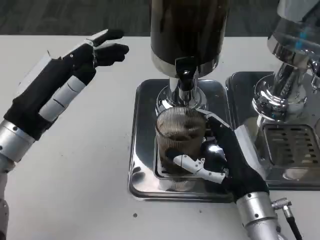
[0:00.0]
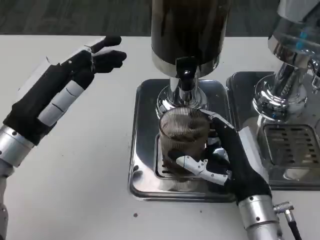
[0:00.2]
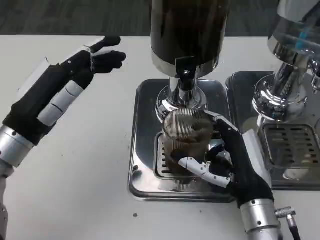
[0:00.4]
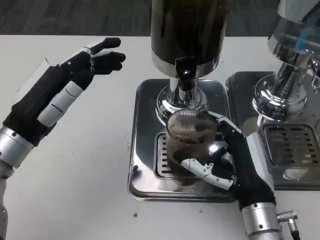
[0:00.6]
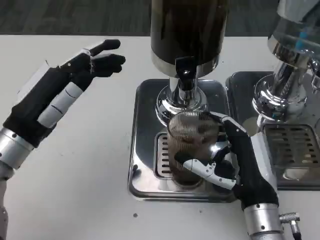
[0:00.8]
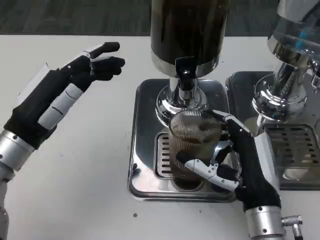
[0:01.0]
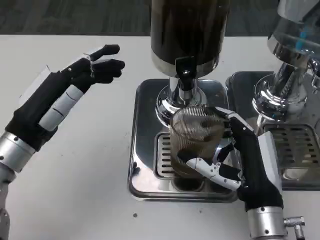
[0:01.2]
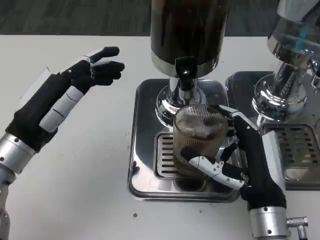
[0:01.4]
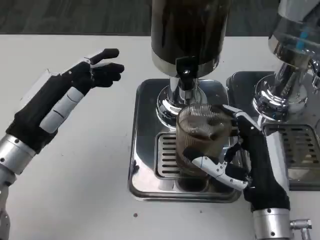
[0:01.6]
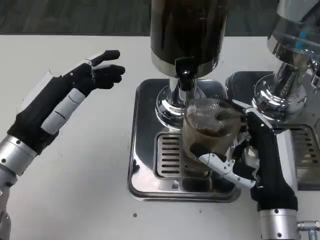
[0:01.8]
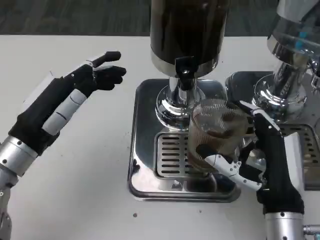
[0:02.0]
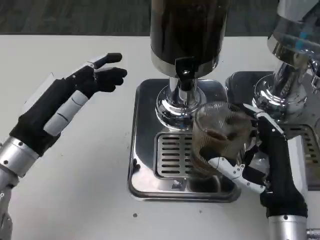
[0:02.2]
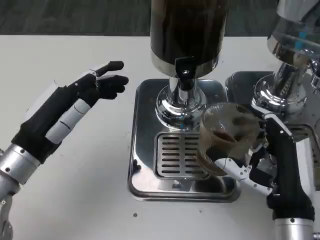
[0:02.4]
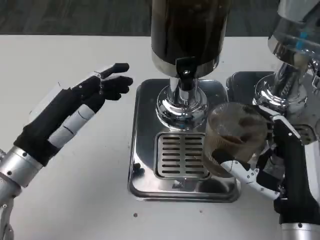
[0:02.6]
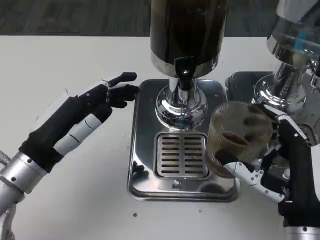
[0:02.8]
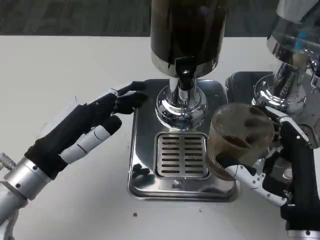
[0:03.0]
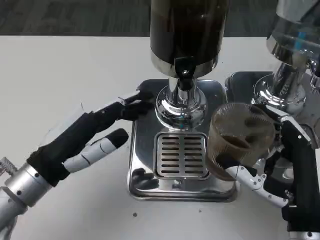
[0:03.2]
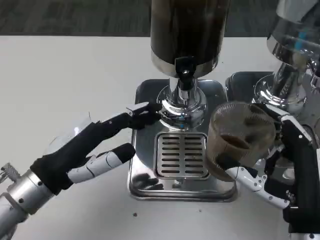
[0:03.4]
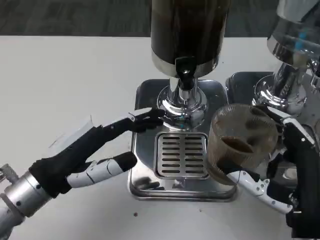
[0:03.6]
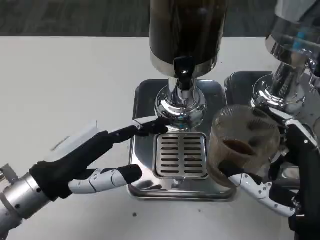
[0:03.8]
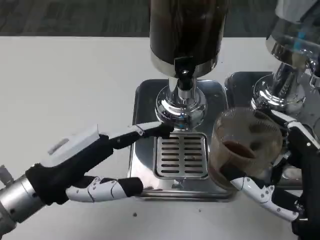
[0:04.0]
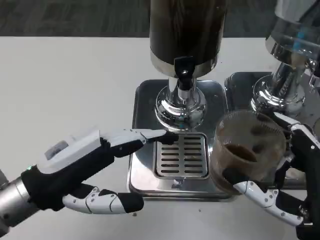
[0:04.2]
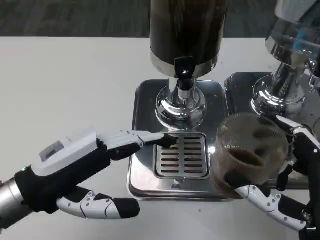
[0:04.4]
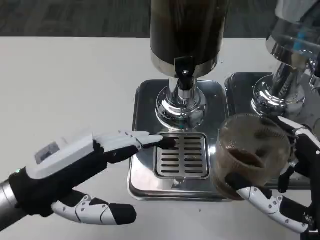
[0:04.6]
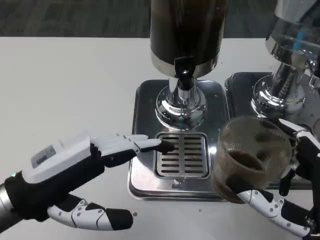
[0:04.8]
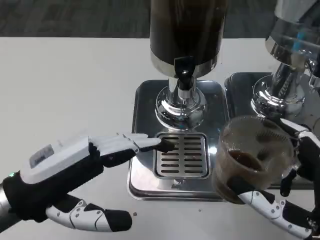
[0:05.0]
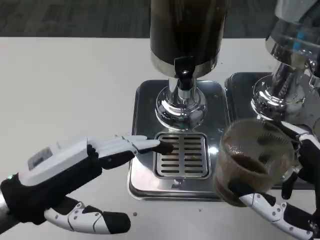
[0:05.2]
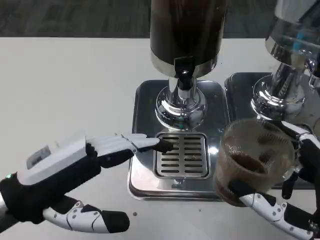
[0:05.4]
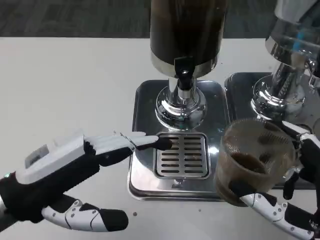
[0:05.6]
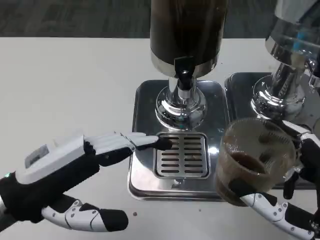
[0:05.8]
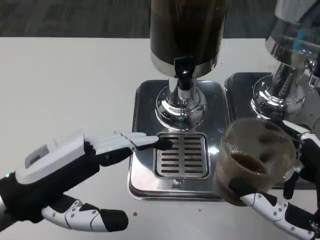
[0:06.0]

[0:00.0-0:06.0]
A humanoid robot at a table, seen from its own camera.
Task of the whole recording: Grasp the cup under the faucet to collect the drink, then remove the cup.
0:03.0 to 0:04.4: The left hand shifts by about 5 cm.
0:04.4 to 0:06.0: The hands stay close to where they were, moving slightly.

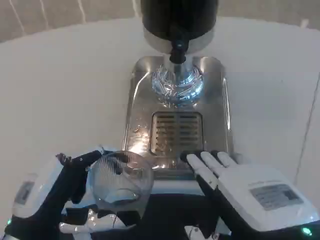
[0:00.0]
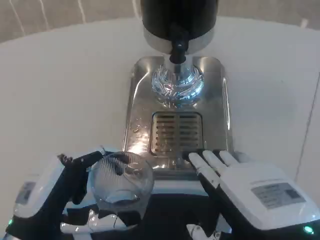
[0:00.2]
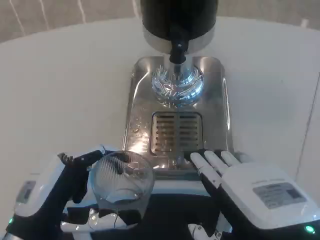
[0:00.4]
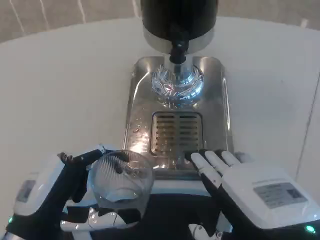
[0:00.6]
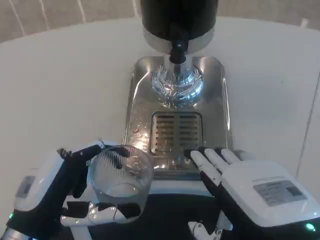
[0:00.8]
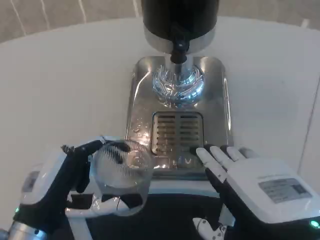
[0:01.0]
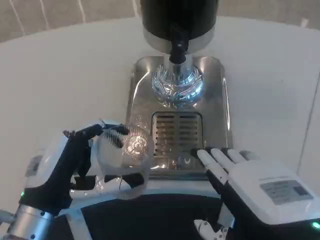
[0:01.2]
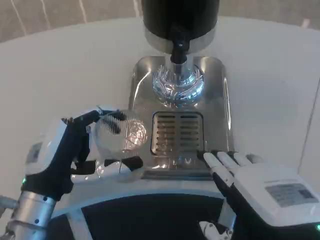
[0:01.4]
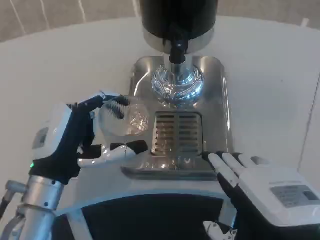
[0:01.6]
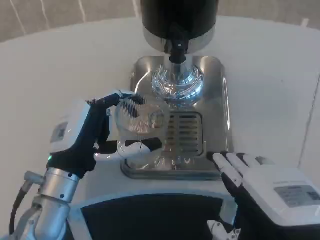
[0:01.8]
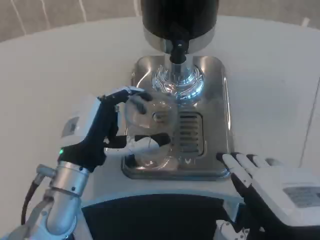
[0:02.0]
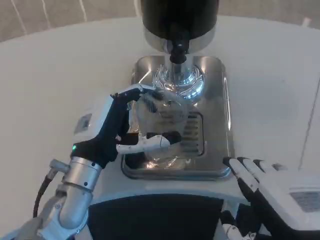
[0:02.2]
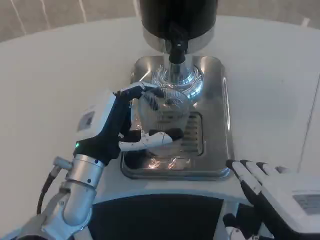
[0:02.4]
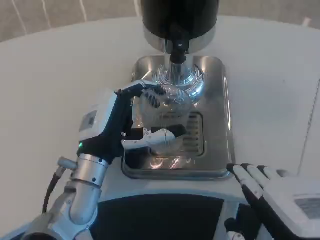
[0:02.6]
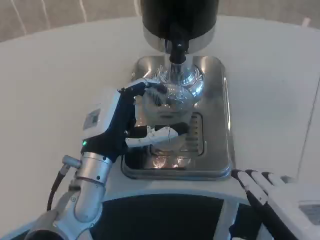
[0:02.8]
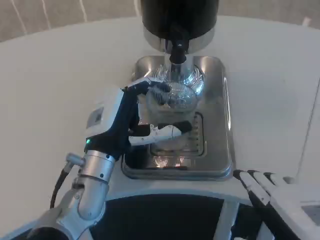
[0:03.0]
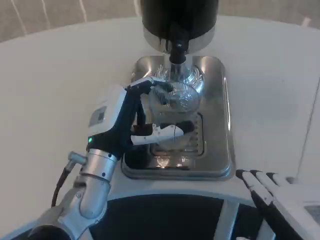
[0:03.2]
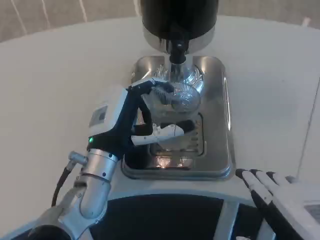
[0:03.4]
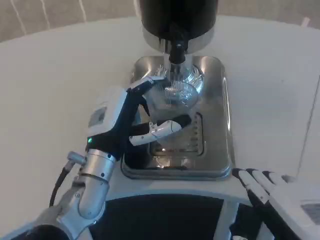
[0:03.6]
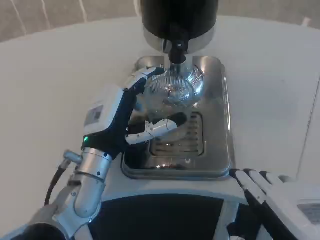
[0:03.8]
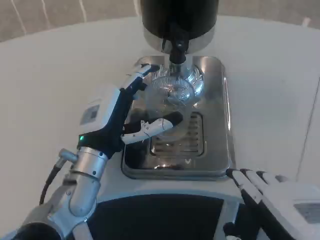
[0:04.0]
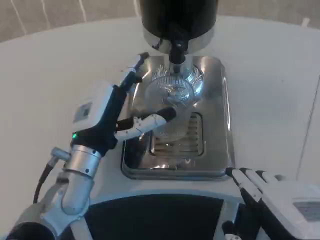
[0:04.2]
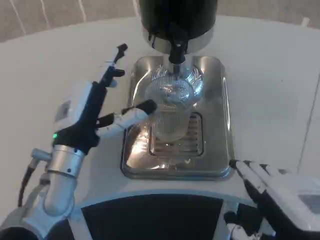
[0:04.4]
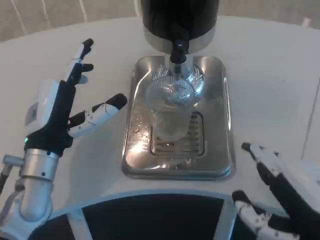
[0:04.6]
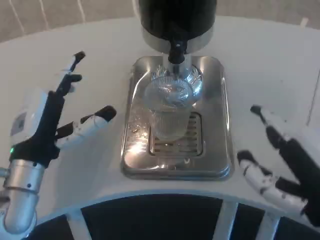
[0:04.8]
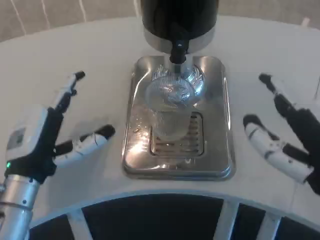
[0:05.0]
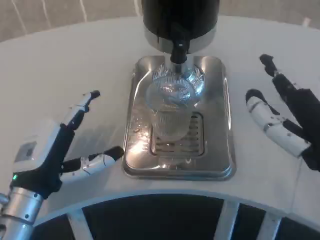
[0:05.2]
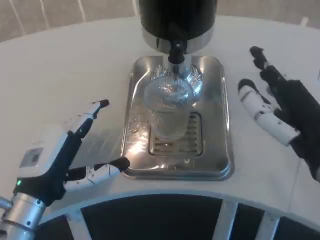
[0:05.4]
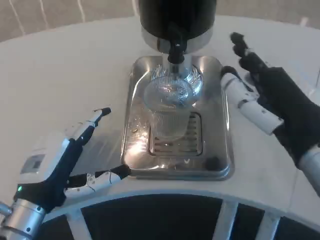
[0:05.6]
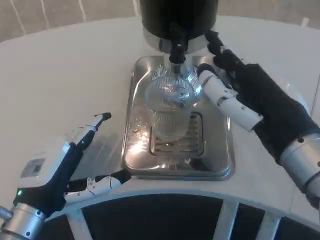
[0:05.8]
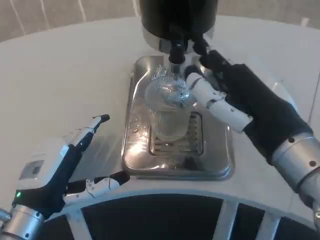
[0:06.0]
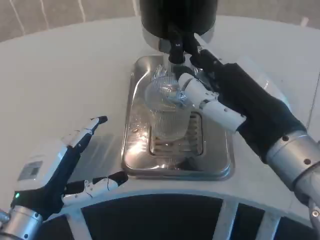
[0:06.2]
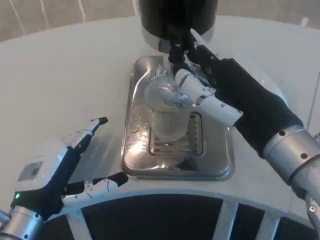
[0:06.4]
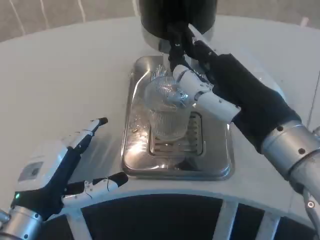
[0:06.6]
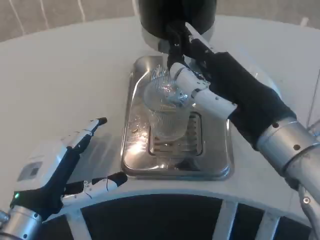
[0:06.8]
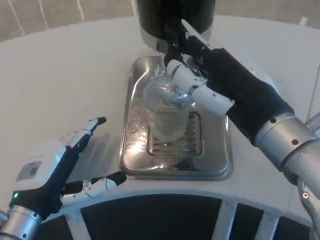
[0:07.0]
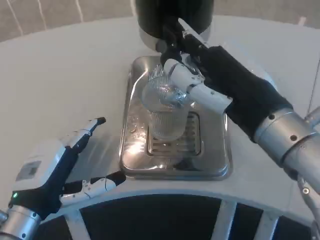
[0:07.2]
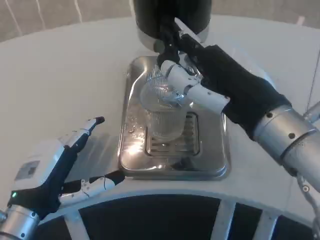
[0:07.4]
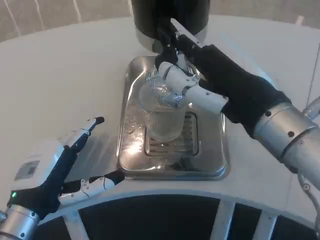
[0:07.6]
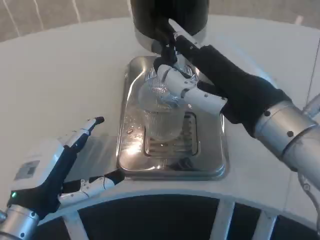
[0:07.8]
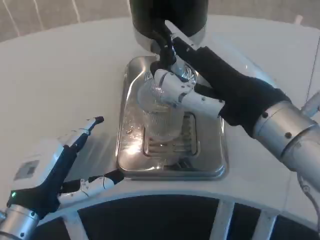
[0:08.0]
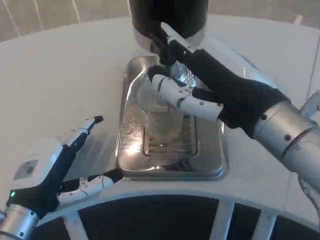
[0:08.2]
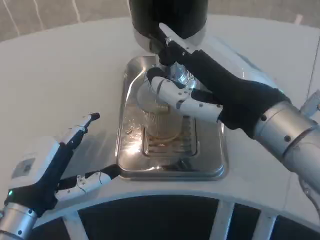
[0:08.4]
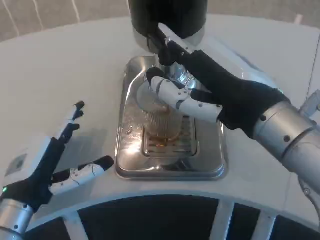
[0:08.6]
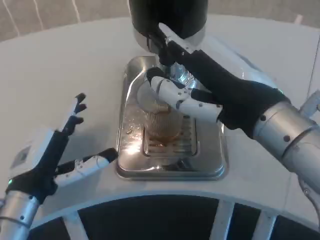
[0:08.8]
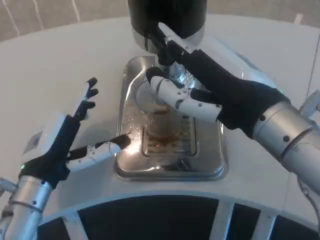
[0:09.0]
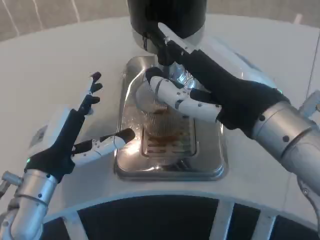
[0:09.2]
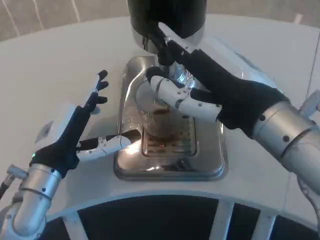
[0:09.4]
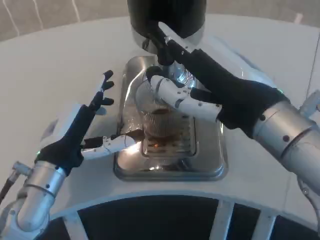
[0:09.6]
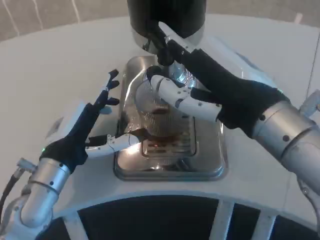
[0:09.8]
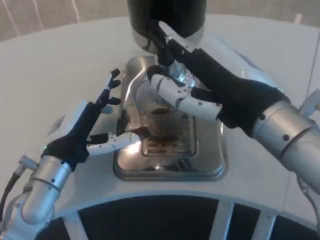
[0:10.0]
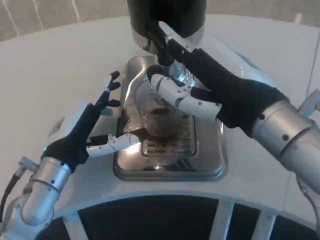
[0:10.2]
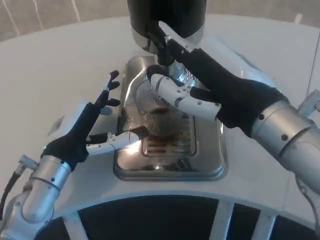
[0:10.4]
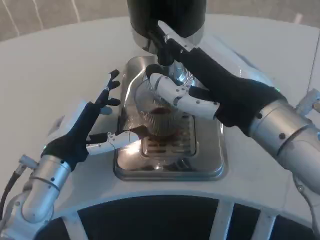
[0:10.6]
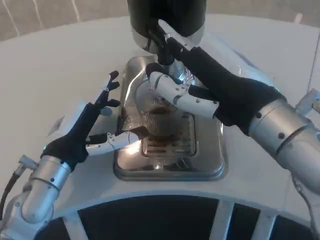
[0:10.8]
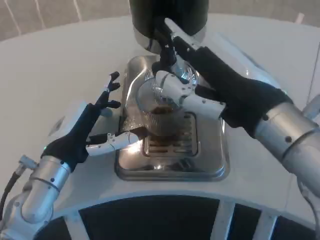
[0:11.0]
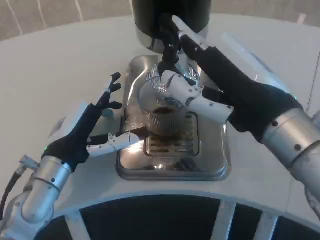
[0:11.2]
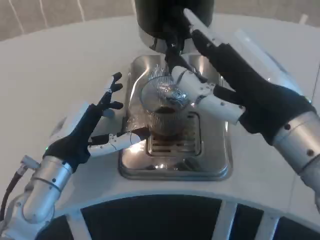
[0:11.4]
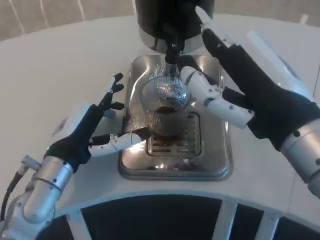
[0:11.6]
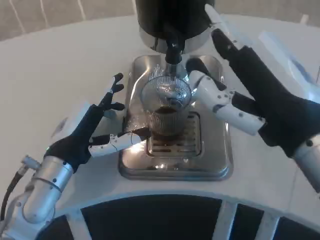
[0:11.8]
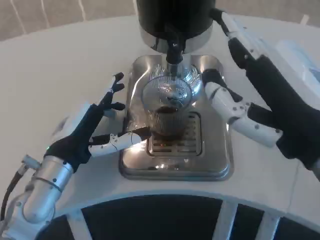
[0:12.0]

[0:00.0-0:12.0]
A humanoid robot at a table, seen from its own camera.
Task of the whole recording: Grasp the cup under the faucet to collect the drink, then remove the cup.
0:00.0 to 0:01.6: The left hand heads forward, covering some 10 cm.
0:01.6 to 0:03.0: The left hand is displaced to the right by approximately 5 cm.
0:04.4 to 0:06.0: The left hand moves backward and to the left, some 10 cm; the right hand travels forward and upward by approximately 10 cm.
0:09.0 to 0:10.4: The hands stay close to where they were, moving slightly.
0:10.4 to 0:12.0: The right hand goes some 5 cm backward.

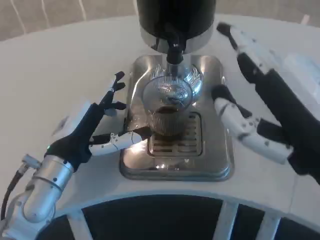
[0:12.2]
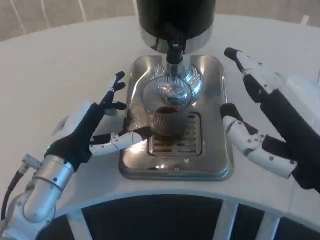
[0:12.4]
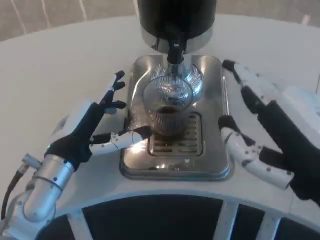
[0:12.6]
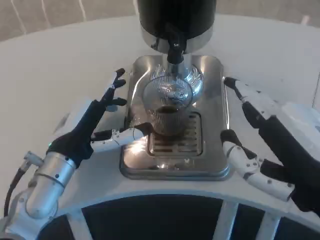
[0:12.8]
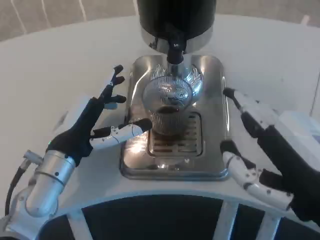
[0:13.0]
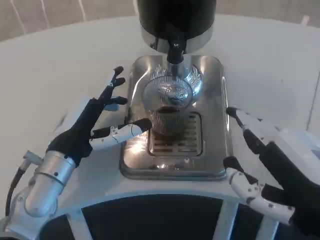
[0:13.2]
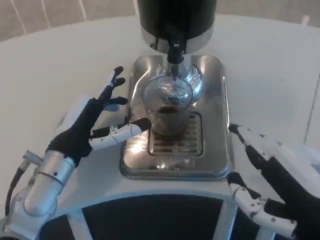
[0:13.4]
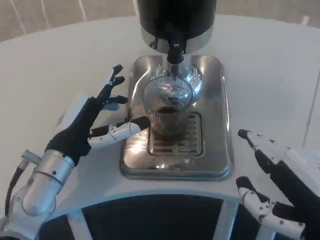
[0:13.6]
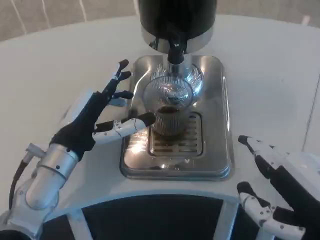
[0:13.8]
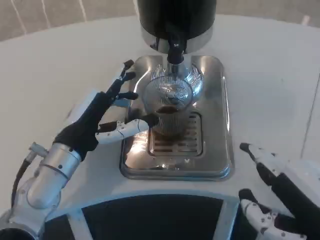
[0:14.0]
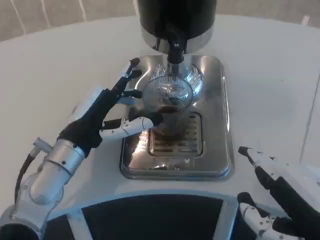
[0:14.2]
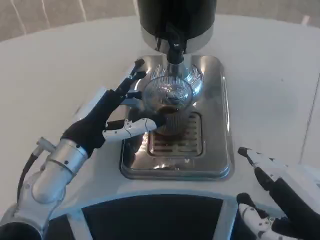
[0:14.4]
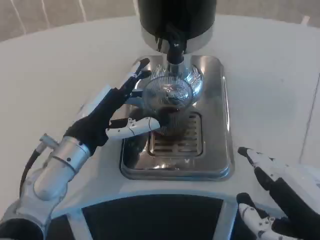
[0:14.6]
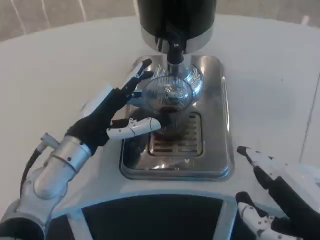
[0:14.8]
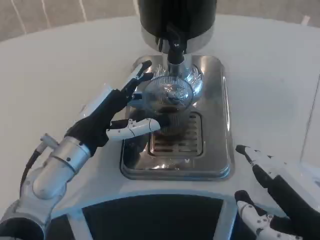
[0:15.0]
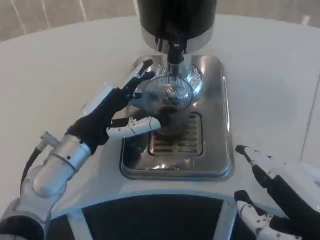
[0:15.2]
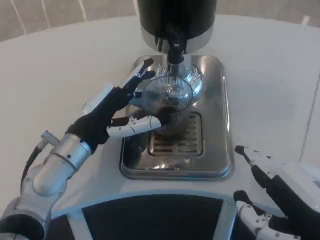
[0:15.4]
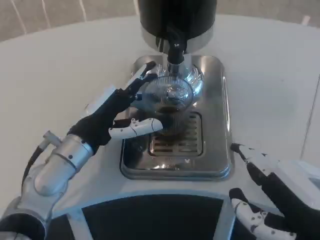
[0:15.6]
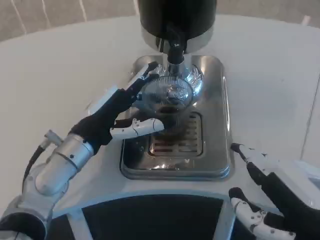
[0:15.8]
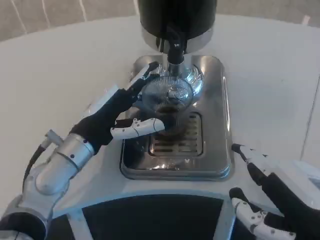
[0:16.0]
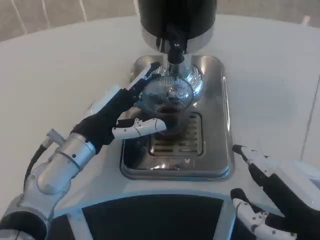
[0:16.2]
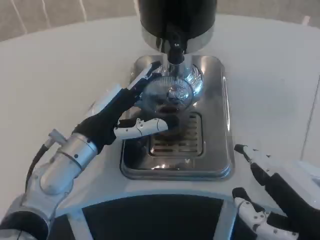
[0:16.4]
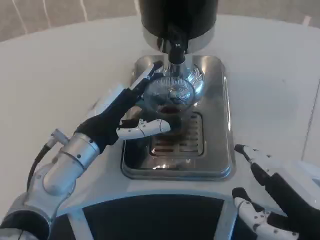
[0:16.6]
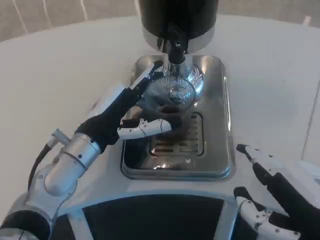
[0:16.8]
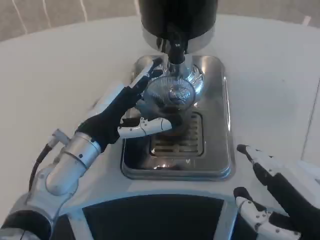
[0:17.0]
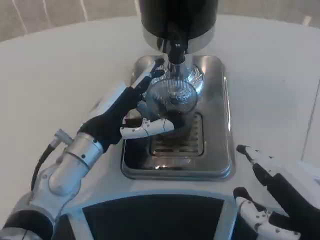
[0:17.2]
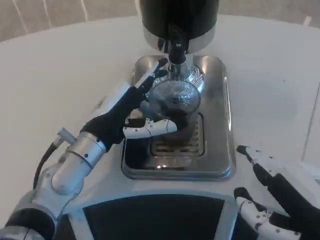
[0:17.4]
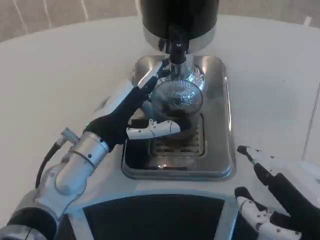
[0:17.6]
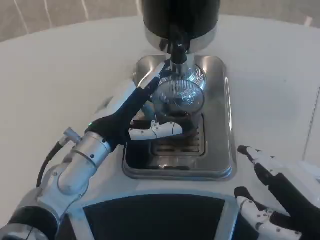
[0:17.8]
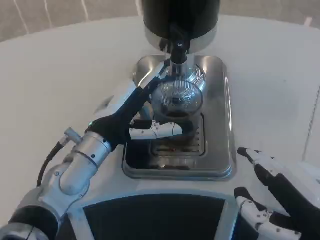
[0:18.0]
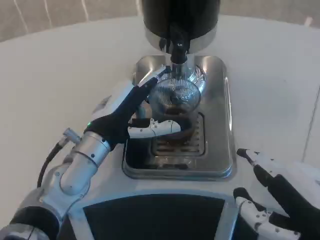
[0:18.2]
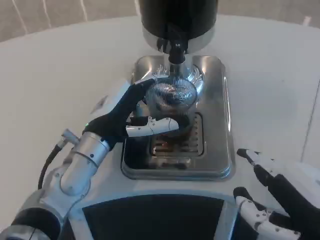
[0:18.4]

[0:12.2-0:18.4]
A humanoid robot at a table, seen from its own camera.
Task of the whole recording: Grasp the cup under the faucet to collect the drink, then remove the cup.
0:12.2 to 0:13.8: The right hand moves about 5 cm.
0:13.8 to 0:15.4: There are only small adjustments of the hands.
0:15.4 to 0:16.8: Both hands stay put.
0:16.8 to 0:18.4: The hands stay close to where they were, moving slightly.
